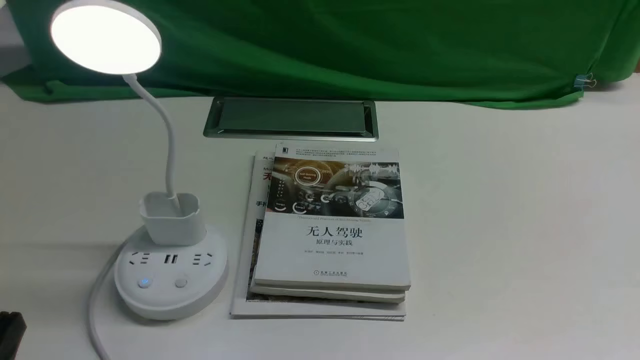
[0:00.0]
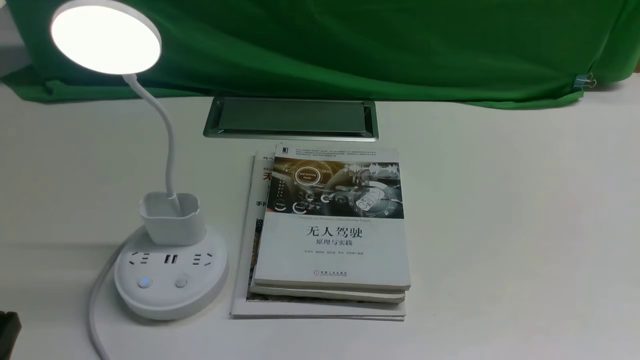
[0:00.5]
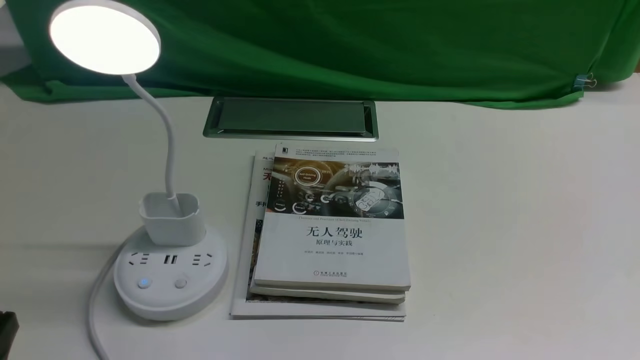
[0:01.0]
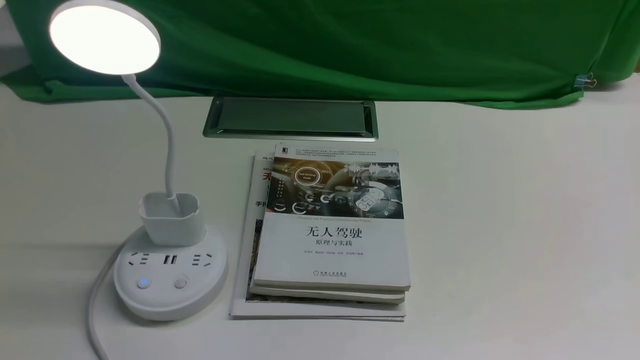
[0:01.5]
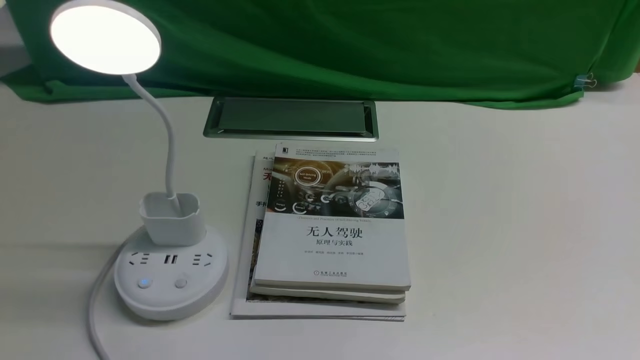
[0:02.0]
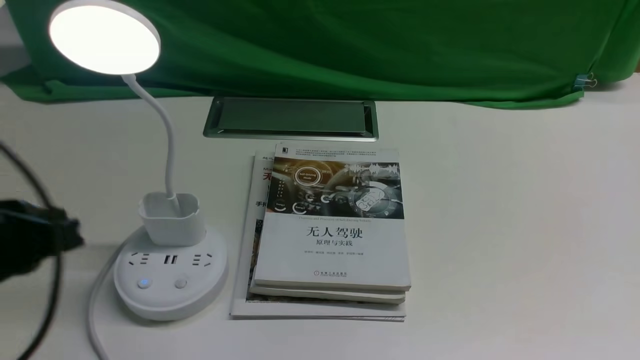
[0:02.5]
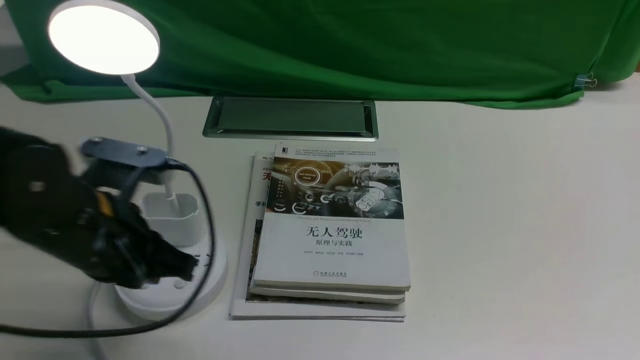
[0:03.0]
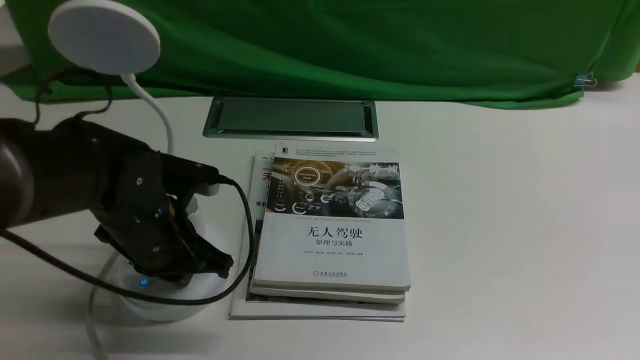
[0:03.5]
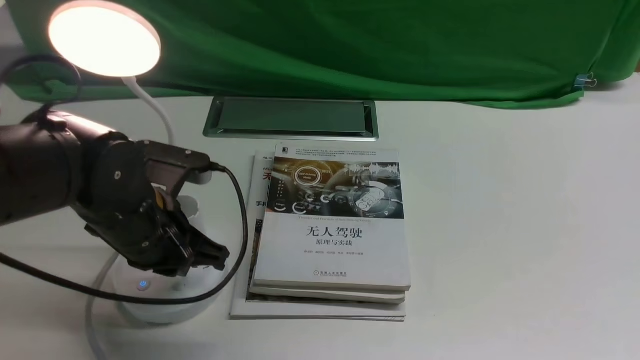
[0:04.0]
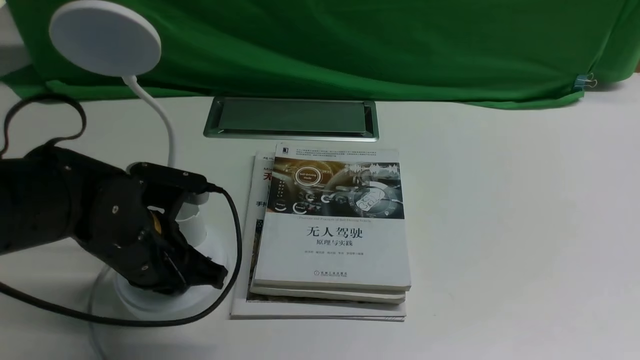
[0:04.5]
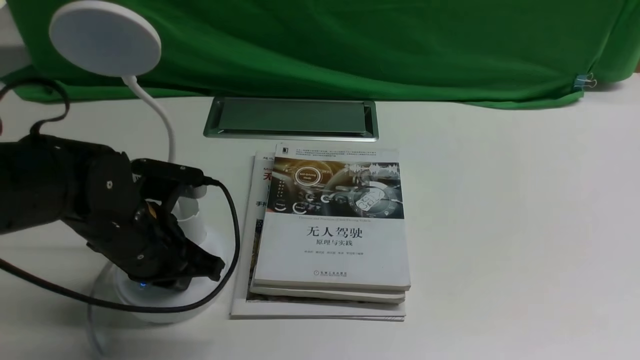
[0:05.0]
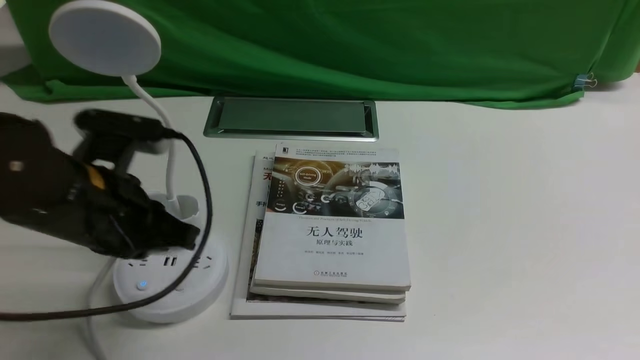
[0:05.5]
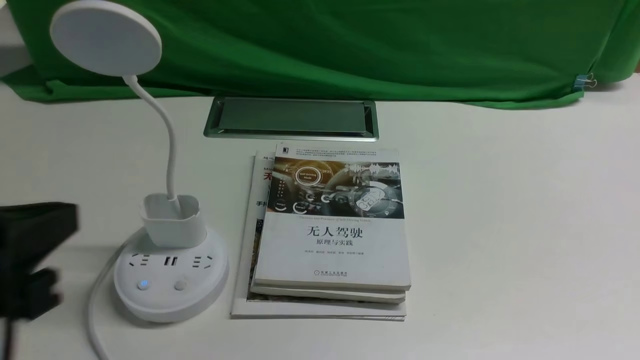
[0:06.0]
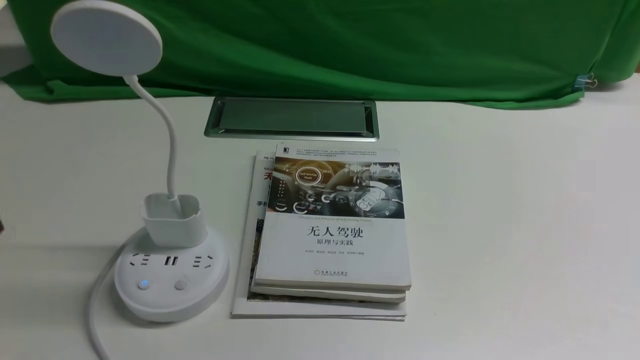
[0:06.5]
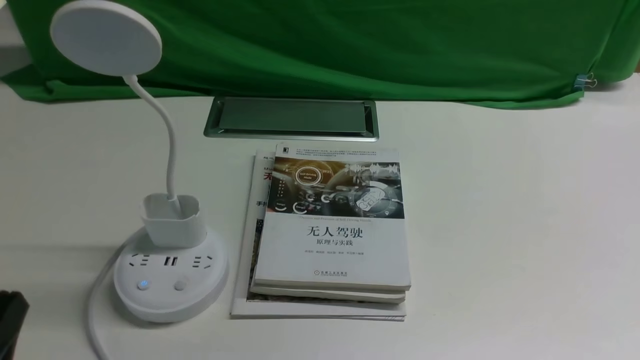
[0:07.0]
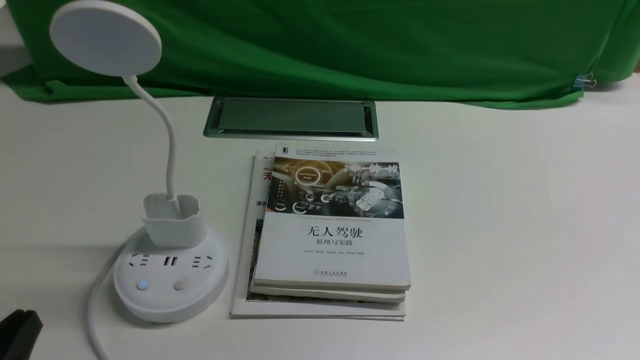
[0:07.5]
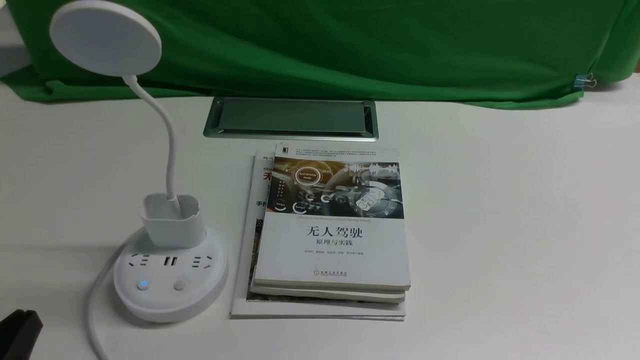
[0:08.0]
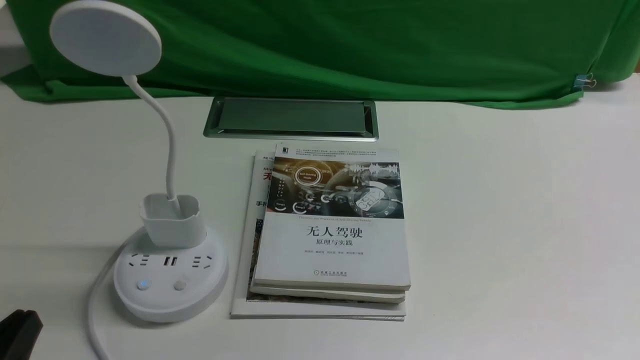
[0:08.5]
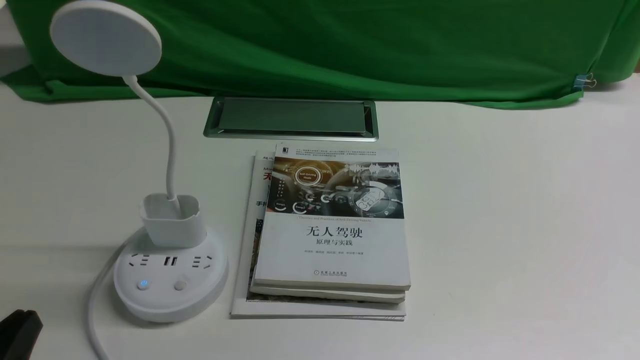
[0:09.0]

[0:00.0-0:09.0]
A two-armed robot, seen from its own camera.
Task of the whole recording: turn off the desk lamp on the white desktop by hand.
Step, 0:00.0 to 0:05.0: use the left arm to press the button switch on the lamp holder.
0:02.0 to 0:04.5: The left gripper moves forward, downward and to the right, approximately 25 cm.
0:04.5 to 0:07.0: The left gripper heads backward, covering approximately 20 cm.
